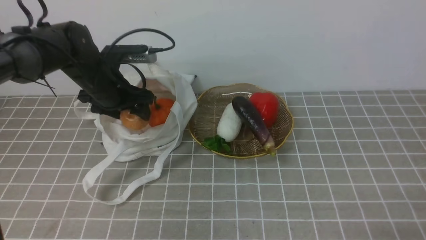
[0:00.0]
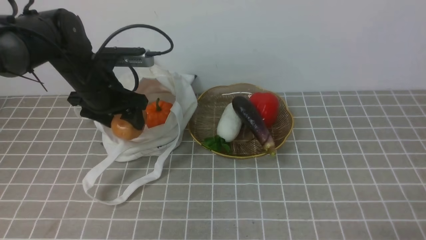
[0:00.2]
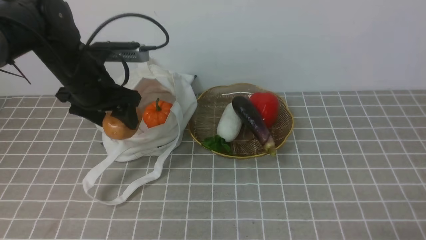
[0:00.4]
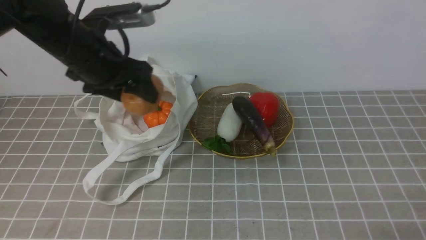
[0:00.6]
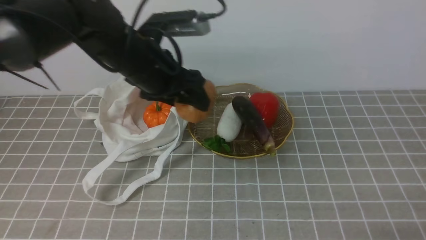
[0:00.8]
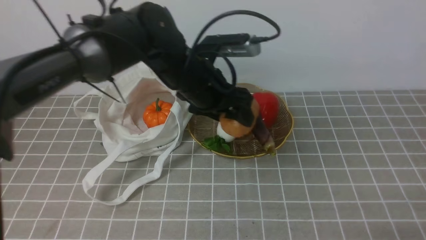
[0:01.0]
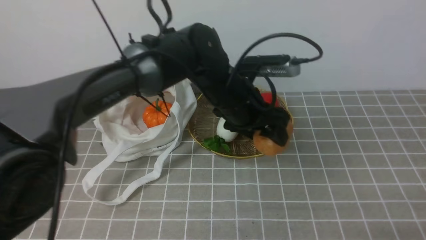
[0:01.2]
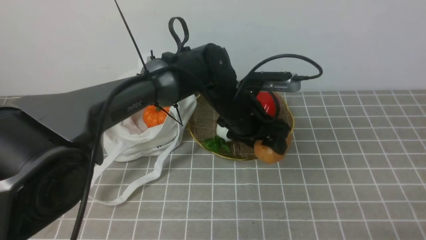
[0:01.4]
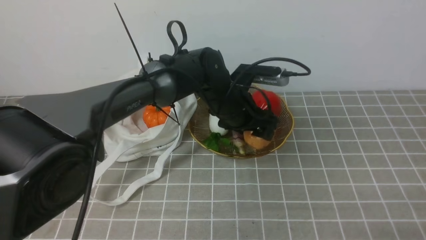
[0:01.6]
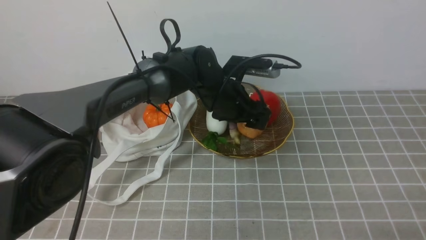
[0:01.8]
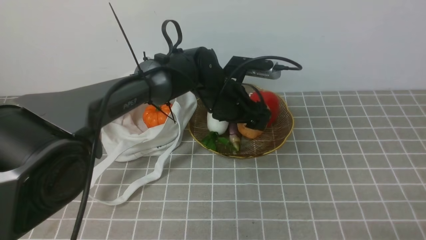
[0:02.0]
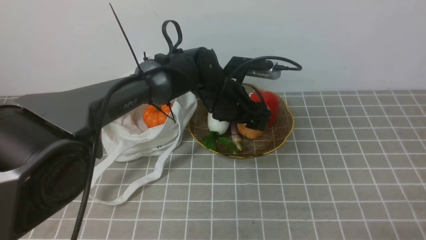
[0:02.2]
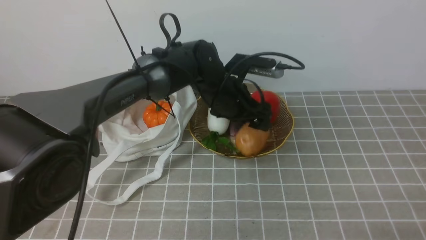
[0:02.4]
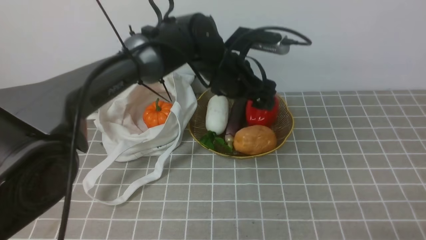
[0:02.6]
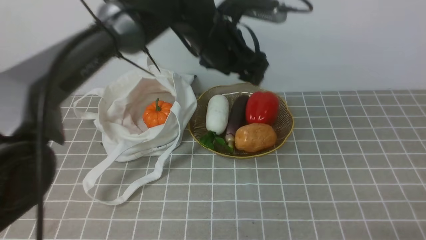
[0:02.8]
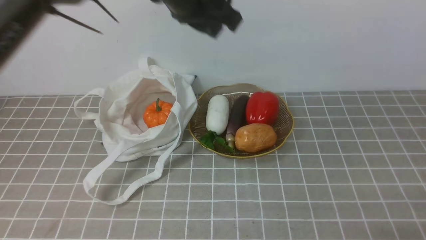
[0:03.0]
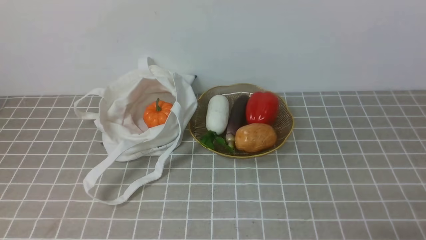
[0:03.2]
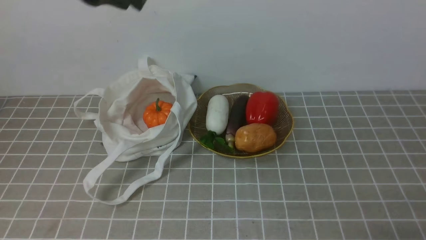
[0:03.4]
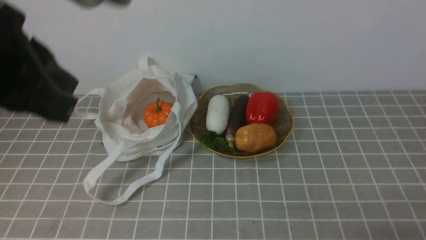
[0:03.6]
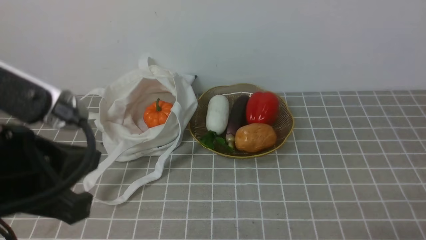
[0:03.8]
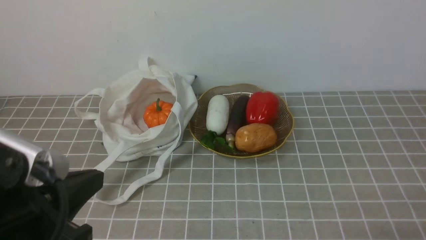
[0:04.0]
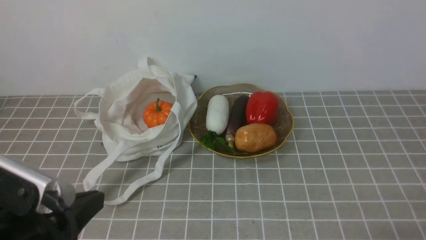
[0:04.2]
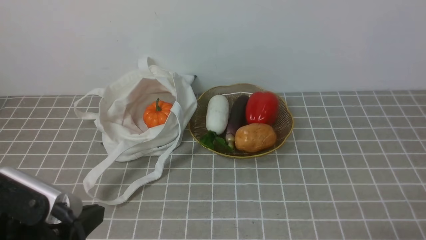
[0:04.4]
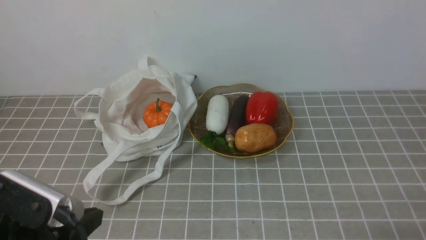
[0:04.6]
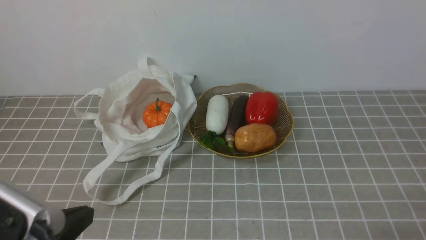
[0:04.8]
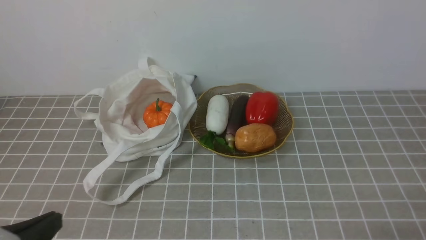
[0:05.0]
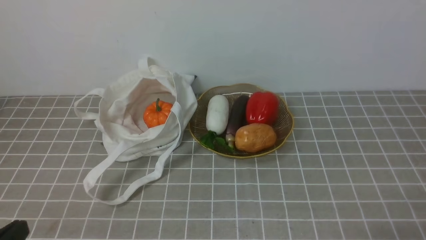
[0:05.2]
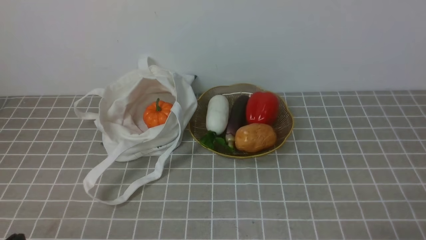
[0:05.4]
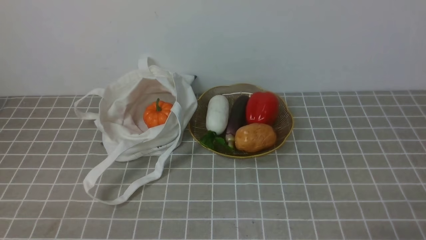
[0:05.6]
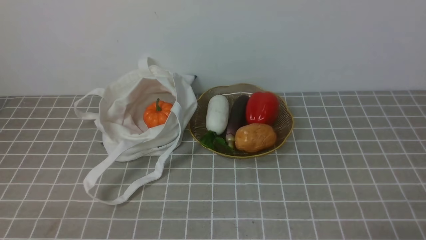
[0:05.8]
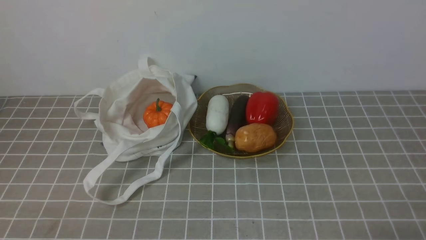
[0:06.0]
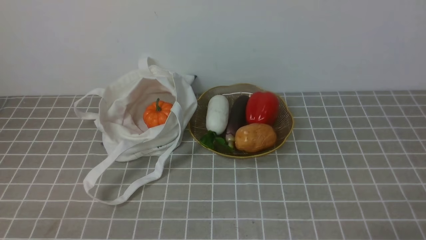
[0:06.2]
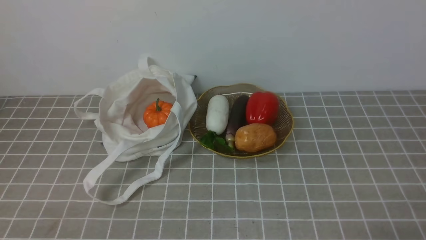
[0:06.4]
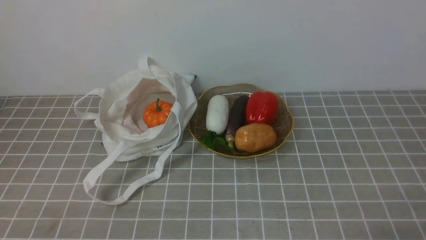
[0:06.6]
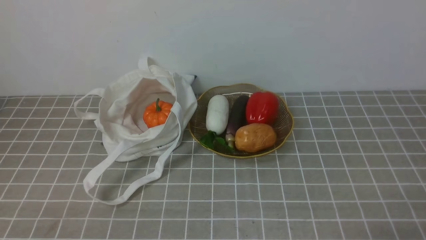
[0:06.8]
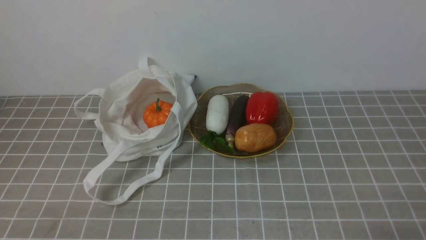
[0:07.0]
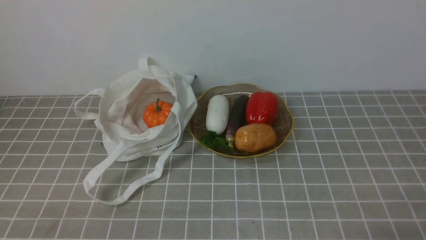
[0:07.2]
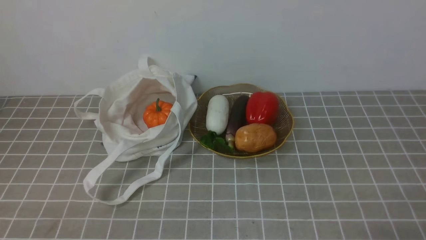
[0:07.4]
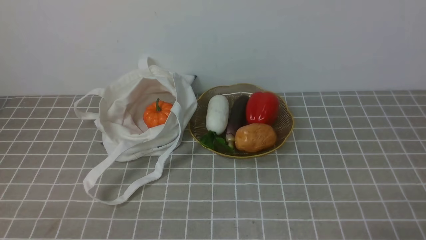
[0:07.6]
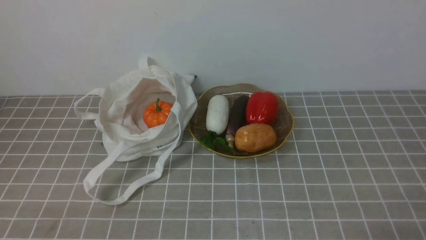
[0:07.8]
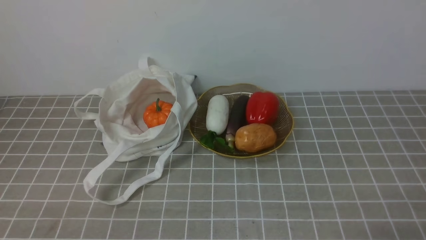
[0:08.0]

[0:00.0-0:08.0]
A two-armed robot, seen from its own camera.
Task of the whole recording: take vegetables from bag on grey coffee tablecloth place on plate.
Step, 0:00.0 to 0:02.6: Place the potato on the plate with left gripper.
0:00.0 to 0:01.6: The left gripper goes about 20 cm to the right.
0:01.6 to 0:03.2: The left gripper goes some 25 cm upward and to the left, and closes.
0:03.2 to 0:04.8: The left gripper travels backward, downward and to the left by approximately 35 cm.
0:04.8 to 0:06.4: The left gripper goes about 10 cm downward.
0:06.4 to 0:08.0: The two grippers keep their place.
